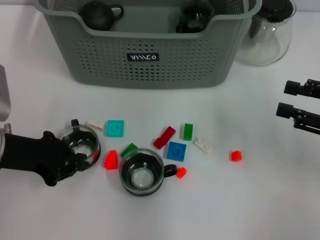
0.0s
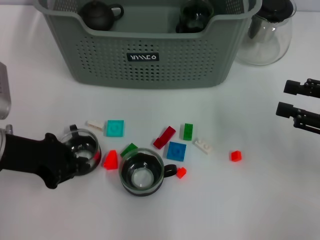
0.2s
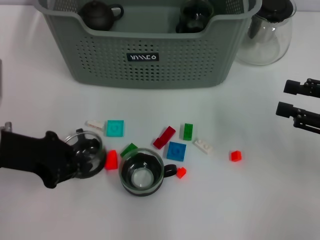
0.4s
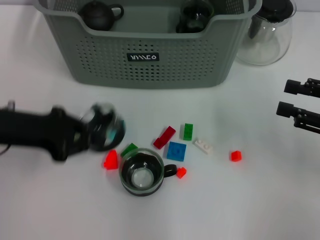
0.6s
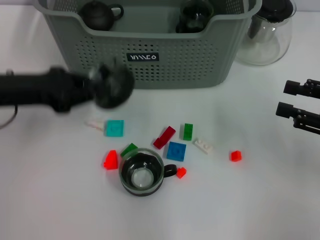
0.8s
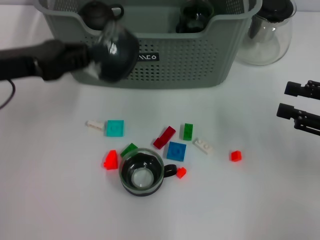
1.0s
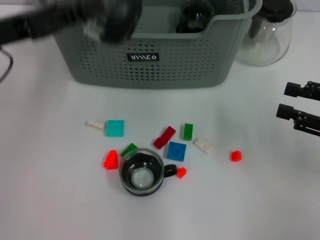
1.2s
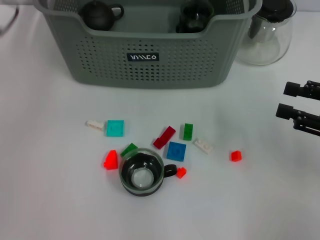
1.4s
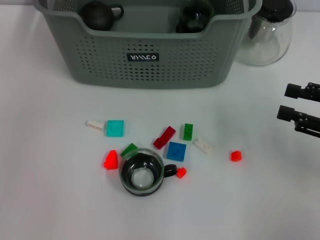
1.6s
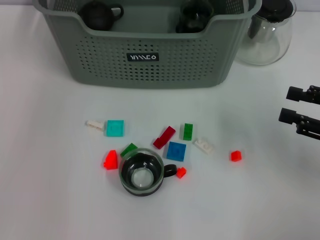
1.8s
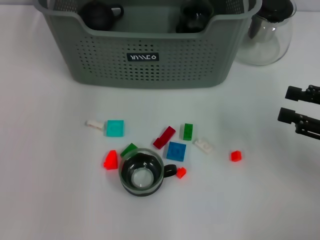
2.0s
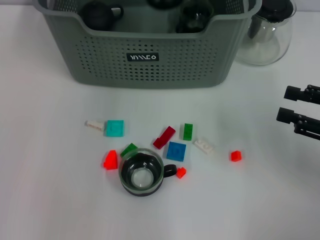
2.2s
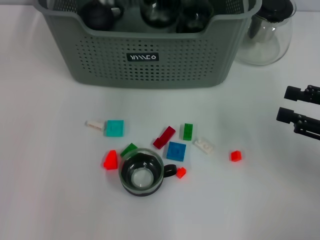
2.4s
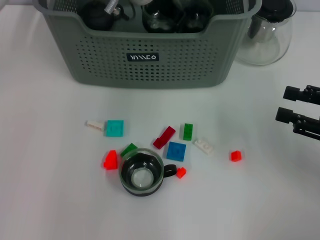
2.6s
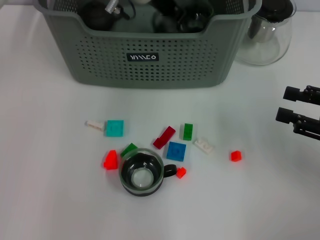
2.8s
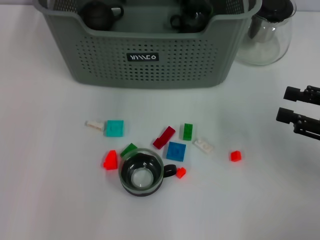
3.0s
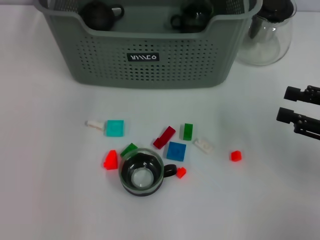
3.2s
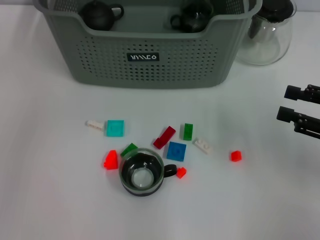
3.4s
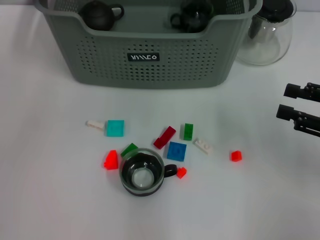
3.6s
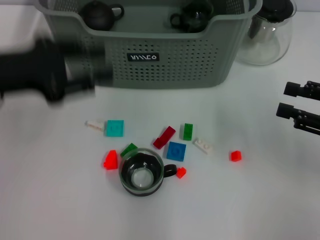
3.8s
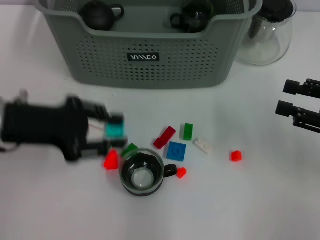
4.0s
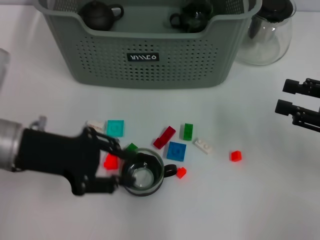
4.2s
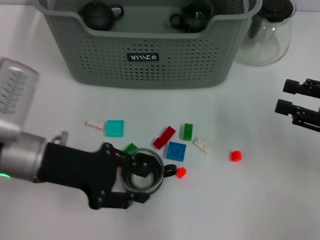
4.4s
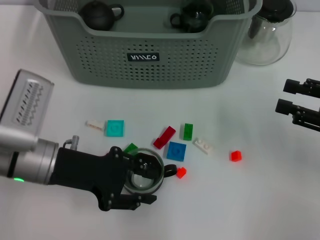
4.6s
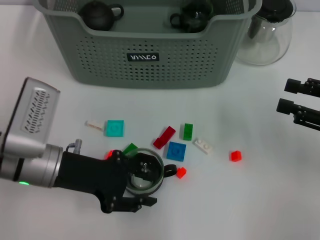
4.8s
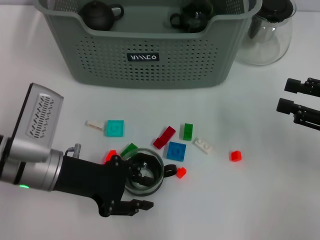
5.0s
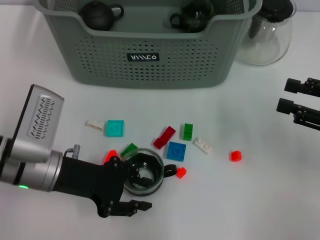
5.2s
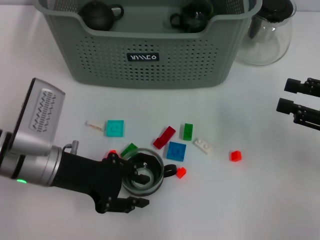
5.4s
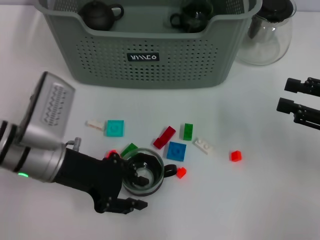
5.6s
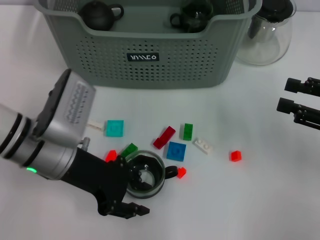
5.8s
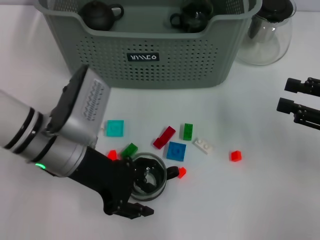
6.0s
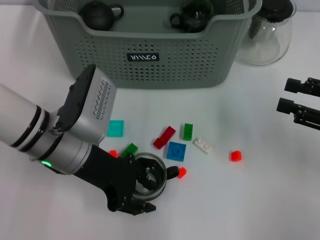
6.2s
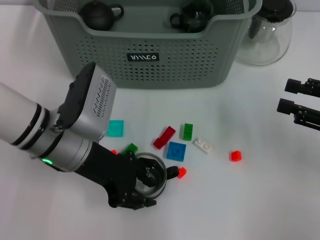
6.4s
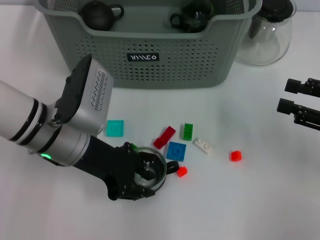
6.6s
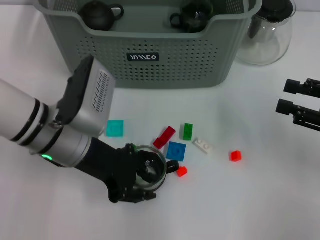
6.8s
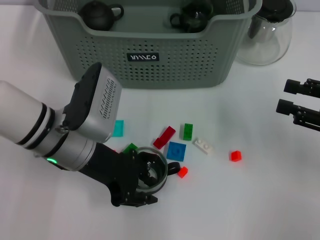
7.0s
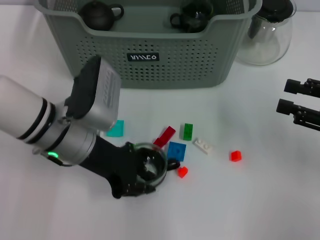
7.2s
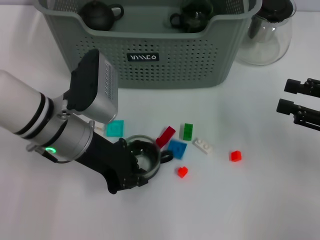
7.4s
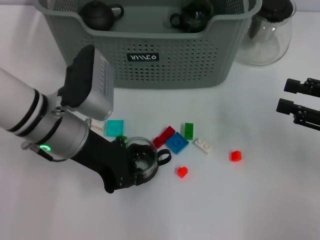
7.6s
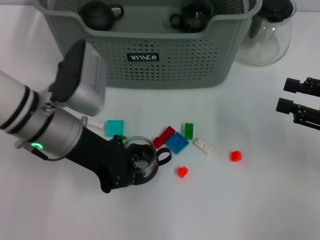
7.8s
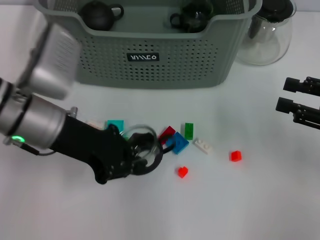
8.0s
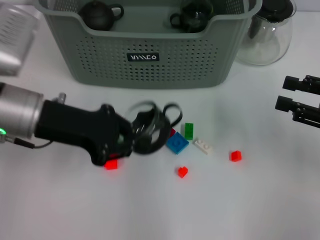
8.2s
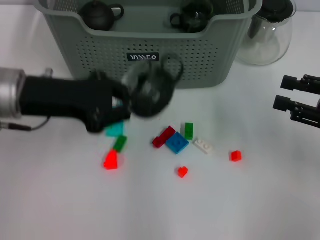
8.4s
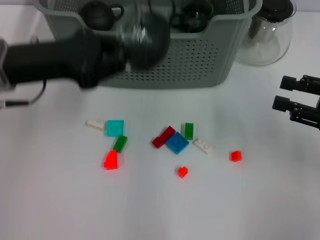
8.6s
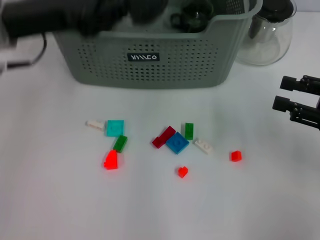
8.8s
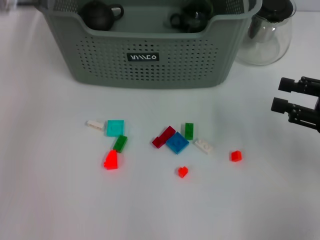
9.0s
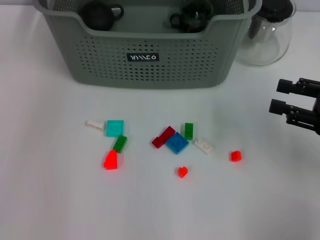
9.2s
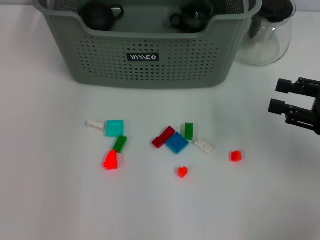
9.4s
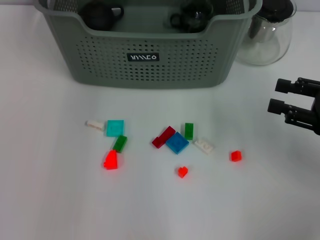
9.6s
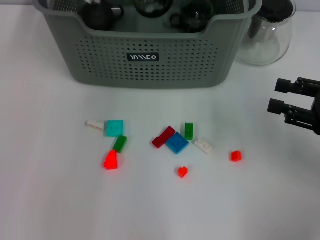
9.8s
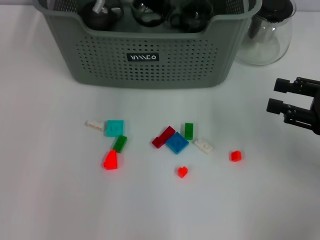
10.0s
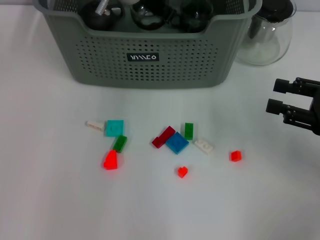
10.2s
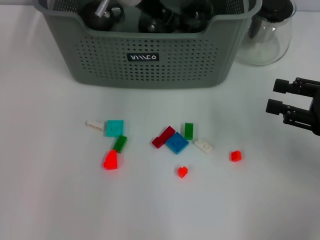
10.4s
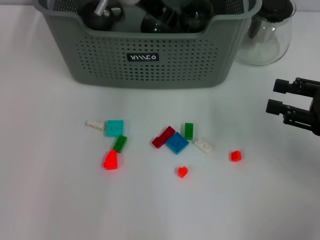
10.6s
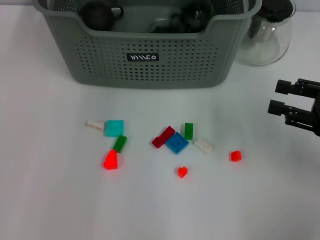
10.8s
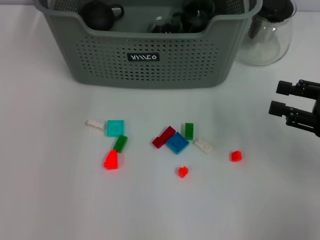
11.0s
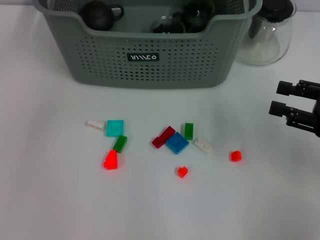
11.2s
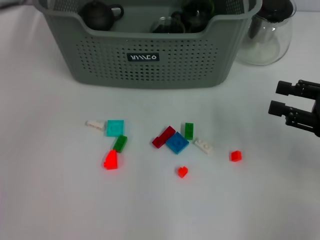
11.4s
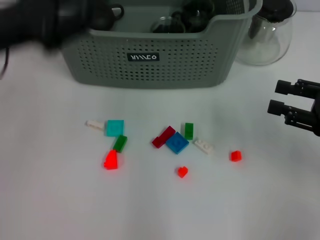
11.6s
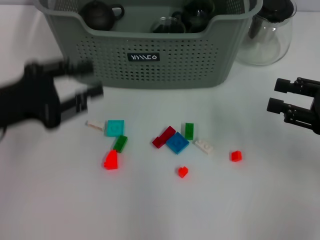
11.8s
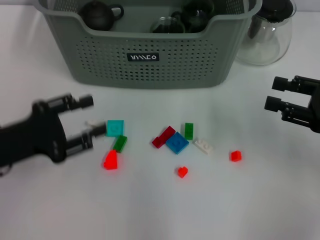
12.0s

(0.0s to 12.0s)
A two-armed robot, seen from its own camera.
Task of the whole recording: pick up the teacup on the table and place it into the storage bin, pick up the block on the table and place it into the storage bin.
Step, 0.2s - 3.2s: Place the cup in the storage box with left gripper.
Step, 3.4s - 7.4s: Grasp the cup with left gripper.
Step, 7.6s - 10.8s: Place the cup in the storage box with left gripper.
0.0s - 1.6s: The left gripper heads upward and forward, covering roughly 20 cm.
3.0s - 4.4s: The left gripper moves backward, to the left and downward, about 30 cm, and opens.
4.4s - 6.0s: The left gripper heads to the right, covering some 5 cm.
6.0s - 7.6s: The left gripper closes its fingers.
7.6s - 9.0s: The left gripper is displaced upward and forward by roughly 20 cm.
9.0s - 10.4s: The left gripper shifts roughly 15 cm to the right, downward and forward.
10.4s - 12.0s: The left gripper goes approximately 35 cm backward, to the left and downward, and opens.

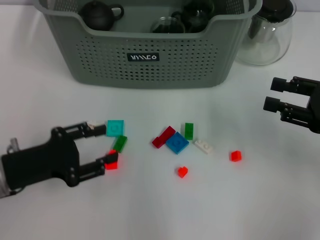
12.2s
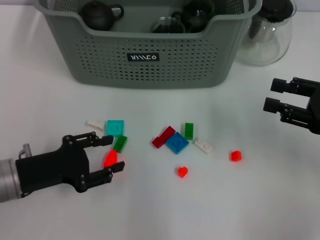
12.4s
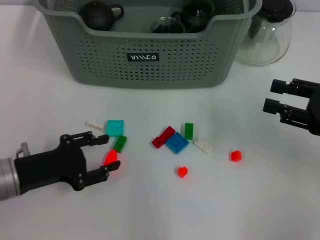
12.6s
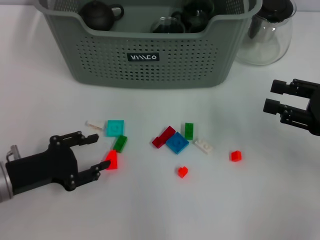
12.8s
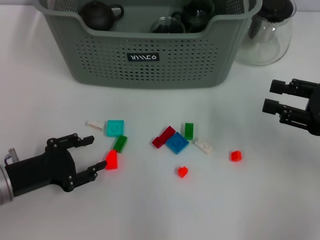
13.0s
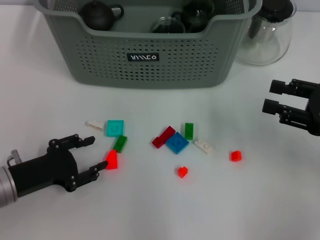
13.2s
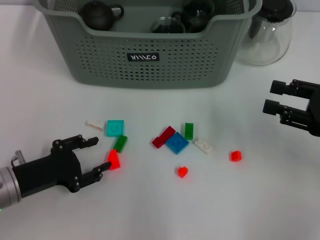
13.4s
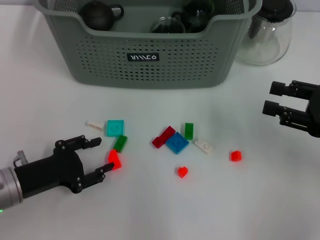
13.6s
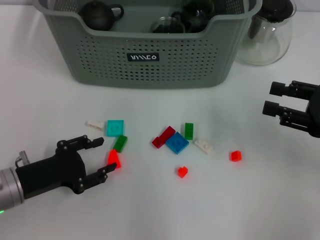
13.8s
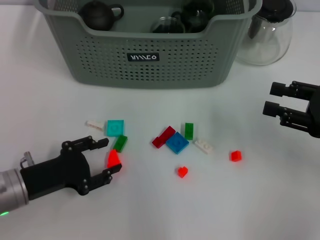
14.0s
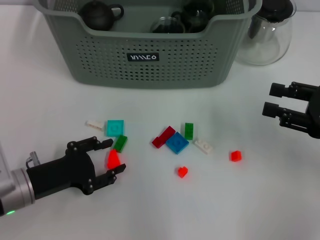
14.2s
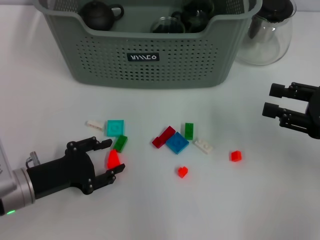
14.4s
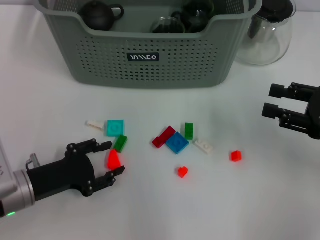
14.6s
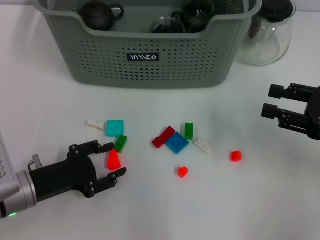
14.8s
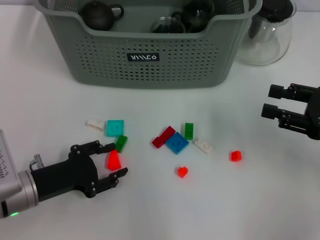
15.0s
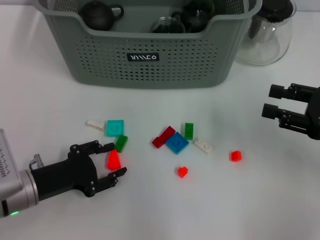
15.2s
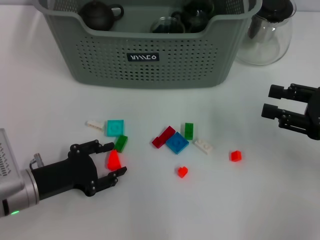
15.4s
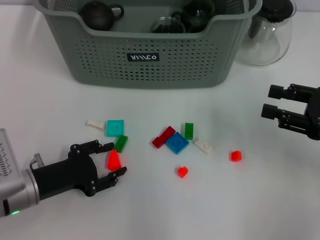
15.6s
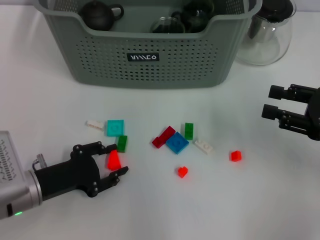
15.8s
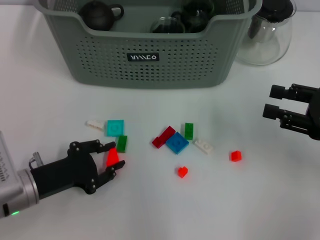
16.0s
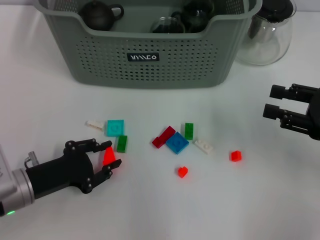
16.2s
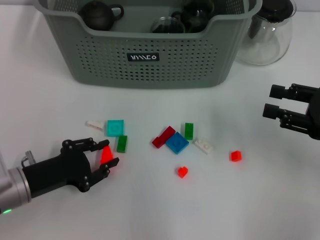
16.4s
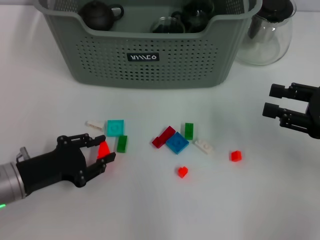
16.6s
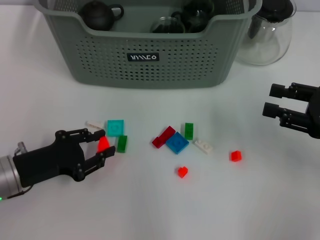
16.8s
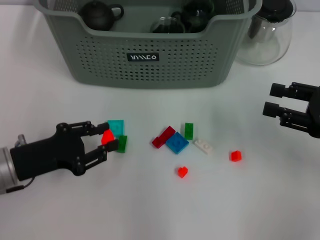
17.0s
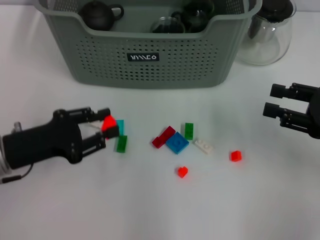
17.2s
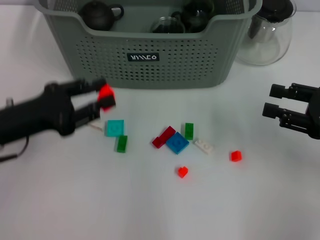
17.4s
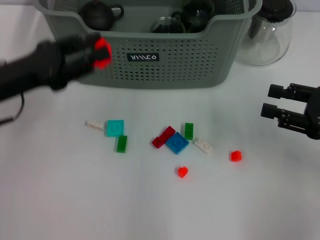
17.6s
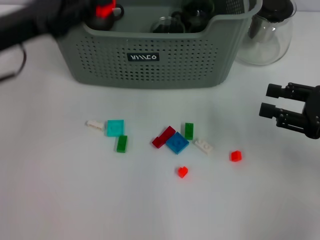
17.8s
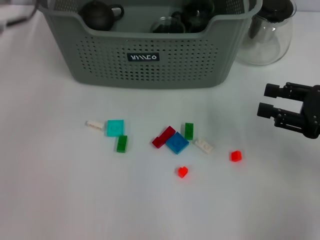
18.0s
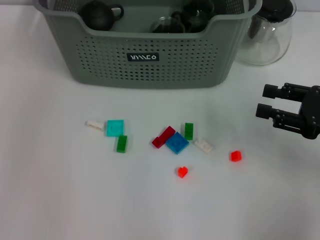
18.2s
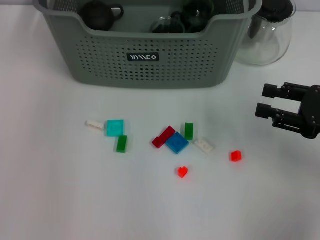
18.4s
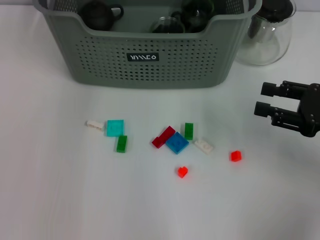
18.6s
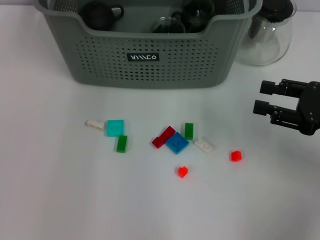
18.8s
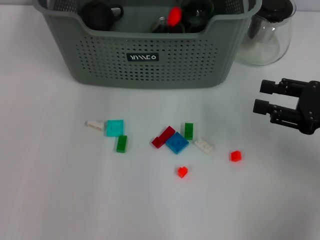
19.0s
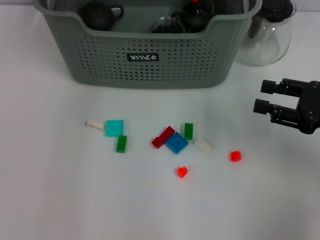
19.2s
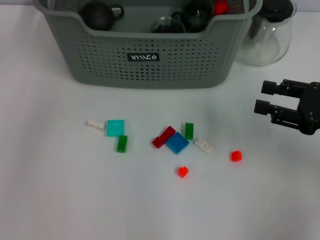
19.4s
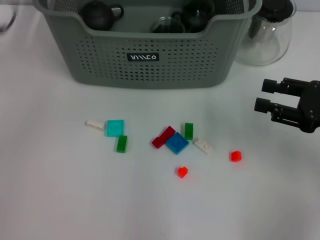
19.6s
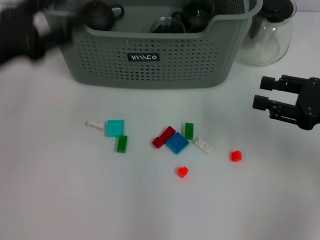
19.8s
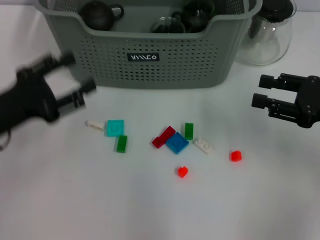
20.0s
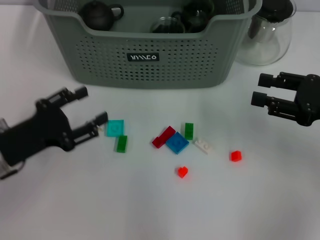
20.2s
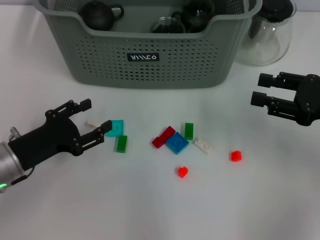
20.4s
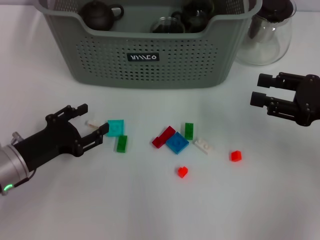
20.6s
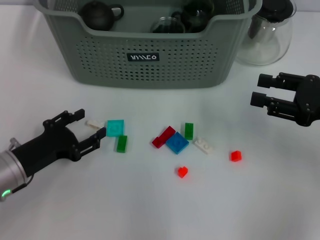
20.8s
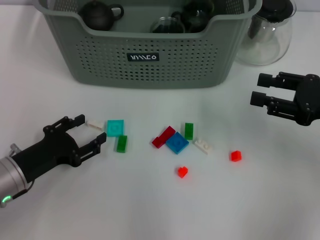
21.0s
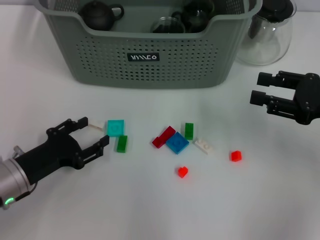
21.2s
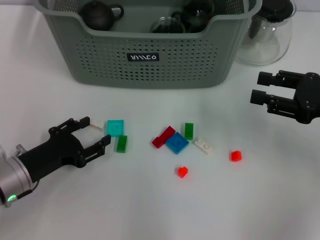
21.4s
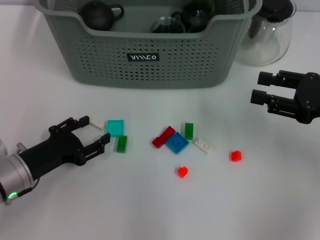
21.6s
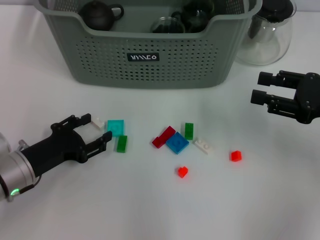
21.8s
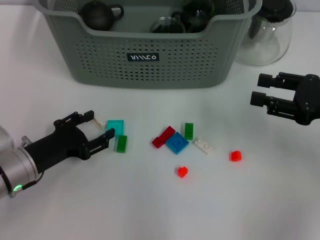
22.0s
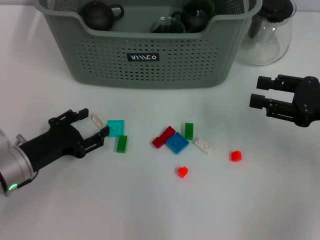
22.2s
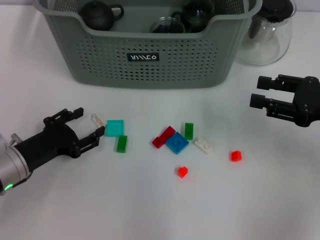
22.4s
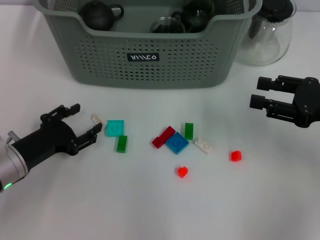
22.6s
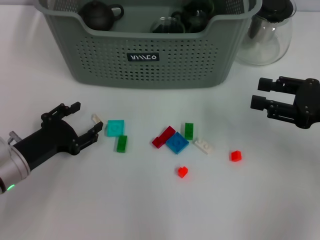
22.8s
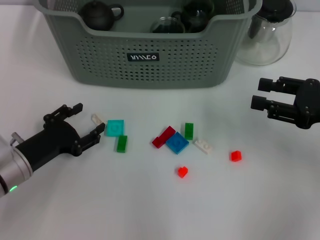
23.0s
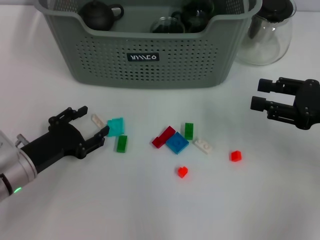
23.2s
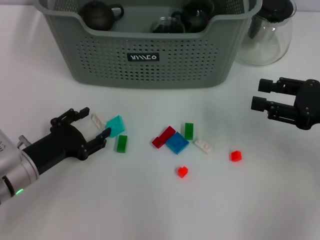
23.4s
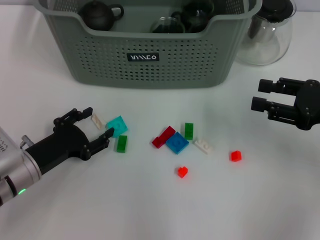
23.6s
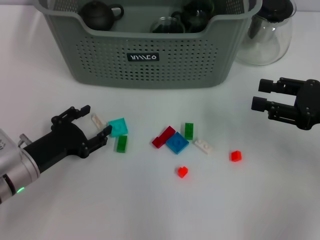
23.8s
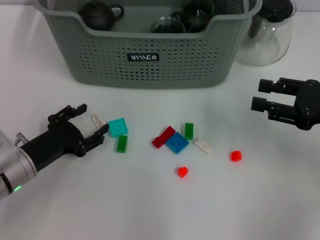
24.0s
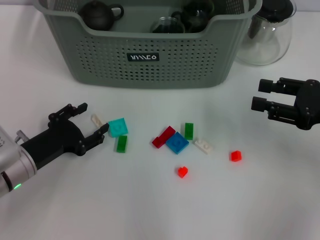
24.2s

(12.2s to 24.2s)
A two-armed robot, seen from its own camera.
Task of the whole recording: pick up the teacup on the table and place it into the storage bin, pick up the block on the table and place it into the storage bin.
Step, 12.2s - 16.6s: Grasp the orange block with left gripper.
Step, 16.8s - 19.2s: Place the orange block in the storage box with left gripper.
12.2s - 16.6s: The grippers make only small movements.
16.6s - 18.2s: The left gripper travels upward and forward by roughly 30 cm.
18.2s - 19.8s: The left gripper heads backward, downward and to the left, covering approximately 20 cm, and opens.
19.8s - 21.2s: The left gripper heads downward and backward, covering about 15 cm.
21.2s - 24.2s: The grippers stay close to where they were, moving slightly.
